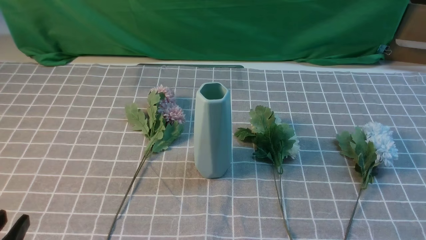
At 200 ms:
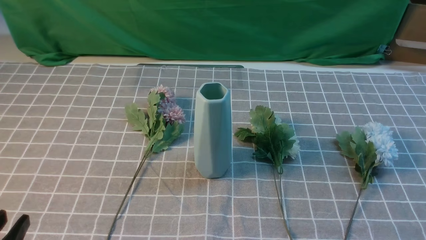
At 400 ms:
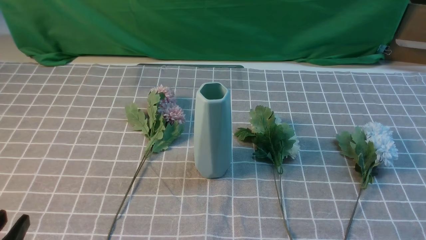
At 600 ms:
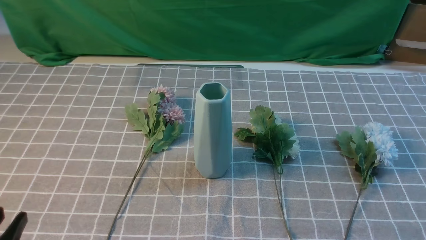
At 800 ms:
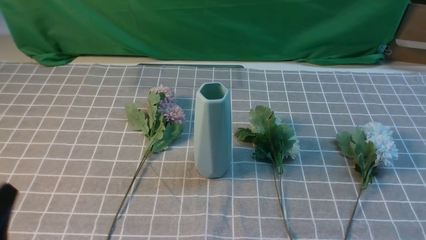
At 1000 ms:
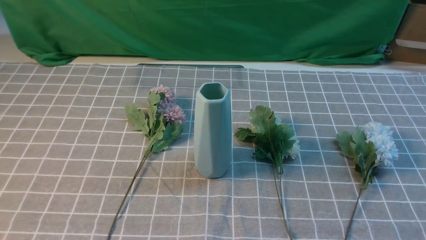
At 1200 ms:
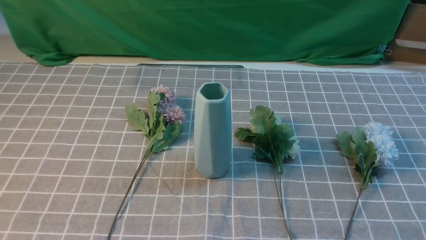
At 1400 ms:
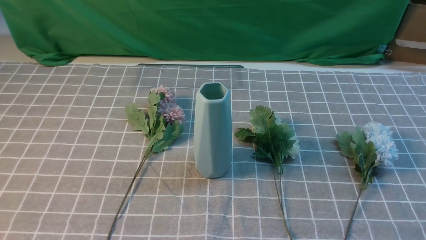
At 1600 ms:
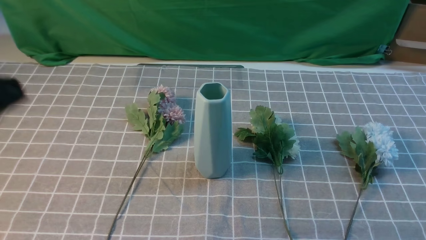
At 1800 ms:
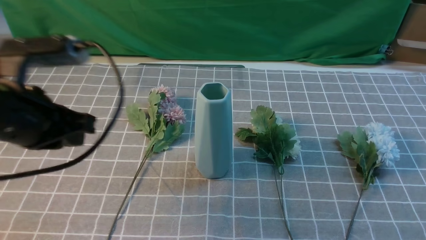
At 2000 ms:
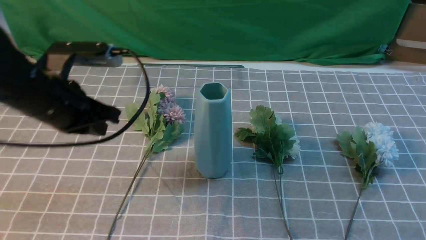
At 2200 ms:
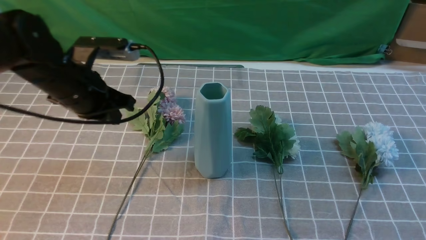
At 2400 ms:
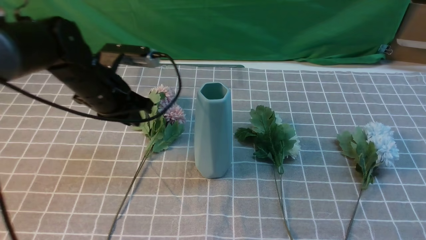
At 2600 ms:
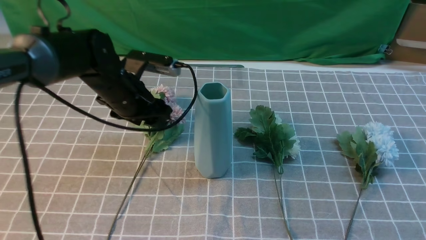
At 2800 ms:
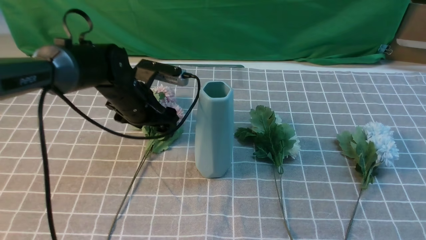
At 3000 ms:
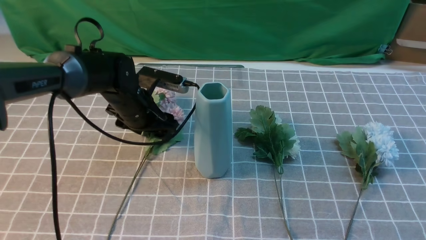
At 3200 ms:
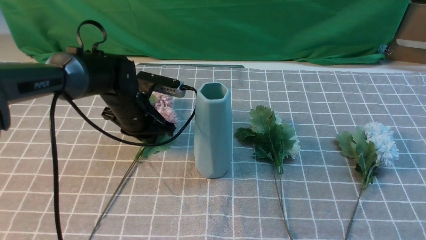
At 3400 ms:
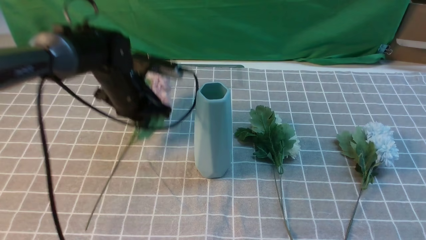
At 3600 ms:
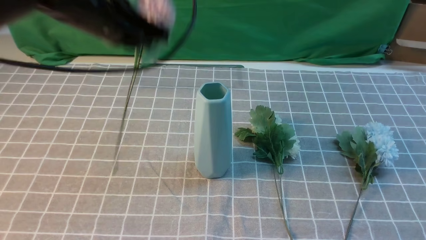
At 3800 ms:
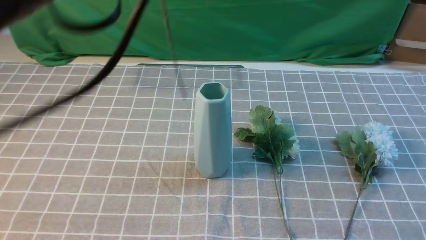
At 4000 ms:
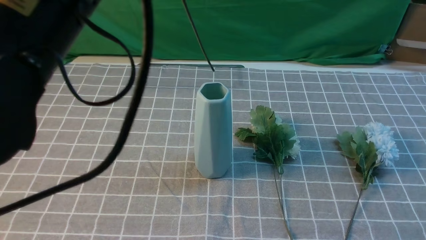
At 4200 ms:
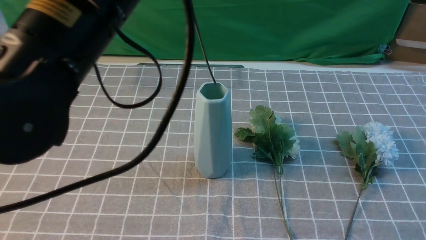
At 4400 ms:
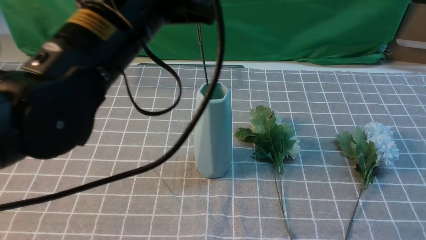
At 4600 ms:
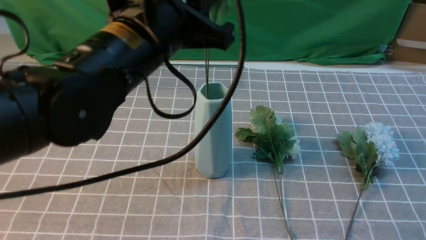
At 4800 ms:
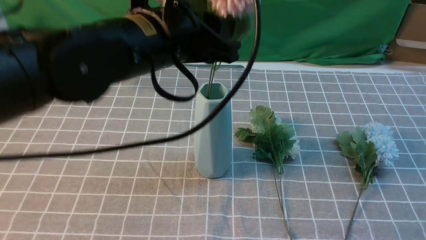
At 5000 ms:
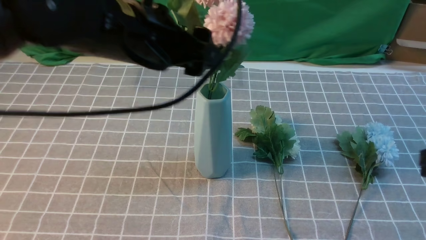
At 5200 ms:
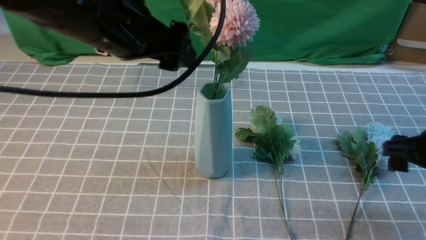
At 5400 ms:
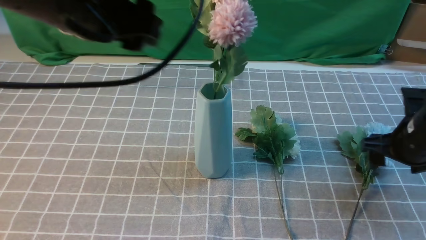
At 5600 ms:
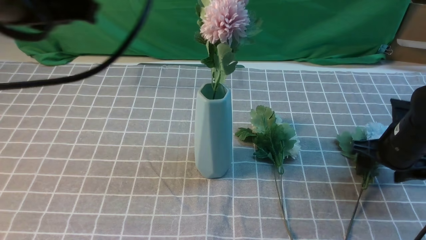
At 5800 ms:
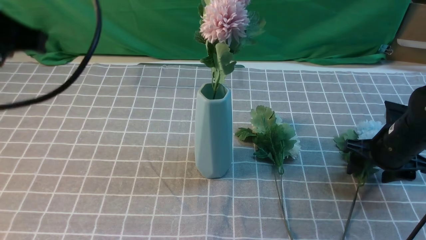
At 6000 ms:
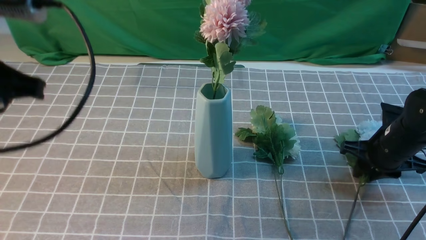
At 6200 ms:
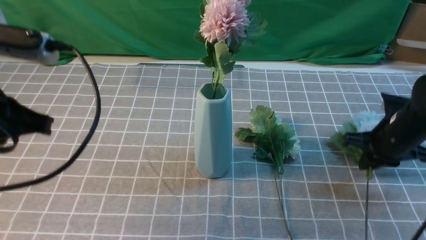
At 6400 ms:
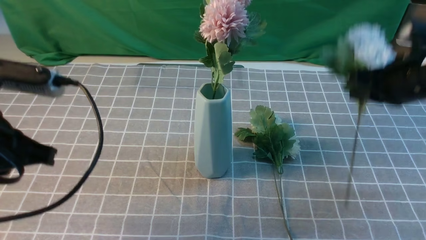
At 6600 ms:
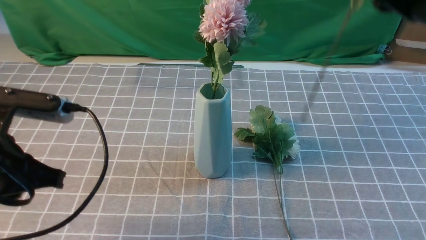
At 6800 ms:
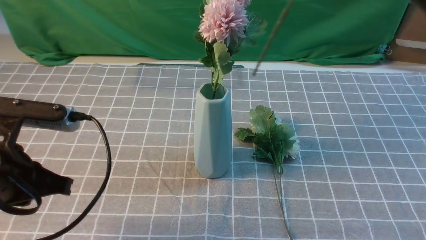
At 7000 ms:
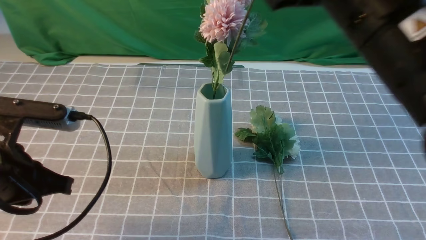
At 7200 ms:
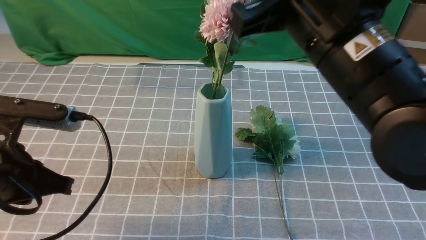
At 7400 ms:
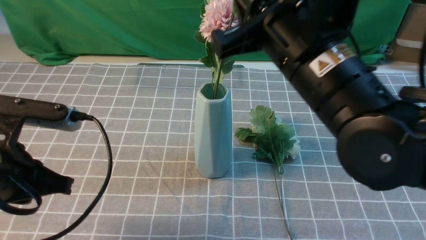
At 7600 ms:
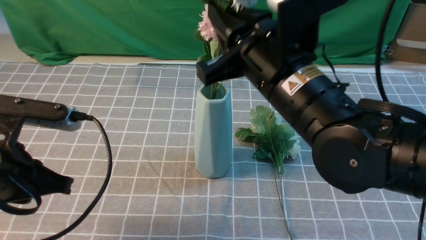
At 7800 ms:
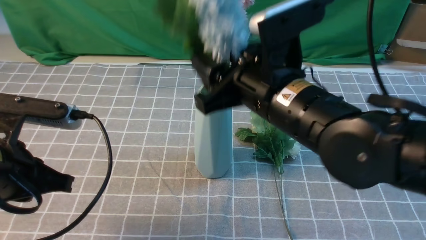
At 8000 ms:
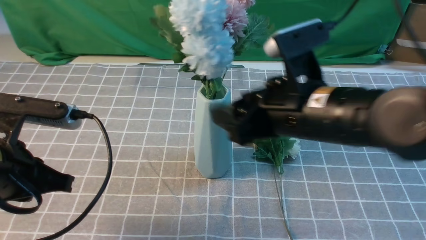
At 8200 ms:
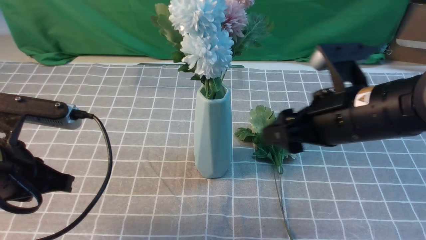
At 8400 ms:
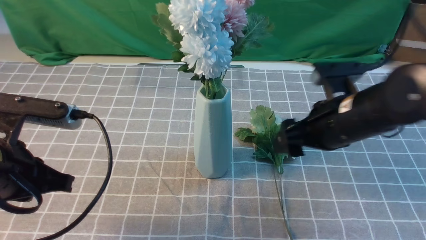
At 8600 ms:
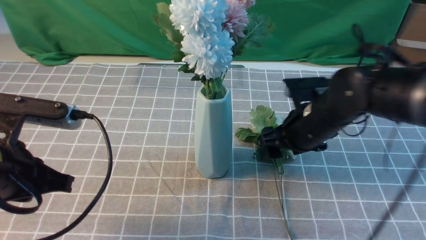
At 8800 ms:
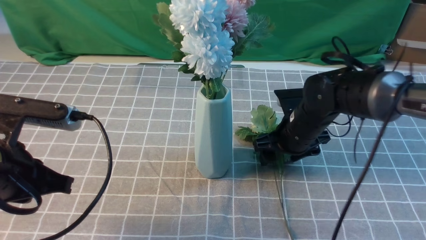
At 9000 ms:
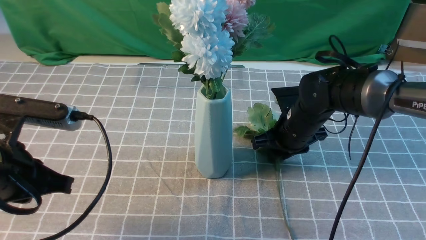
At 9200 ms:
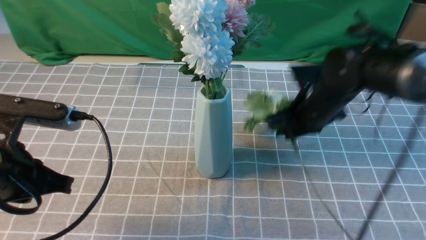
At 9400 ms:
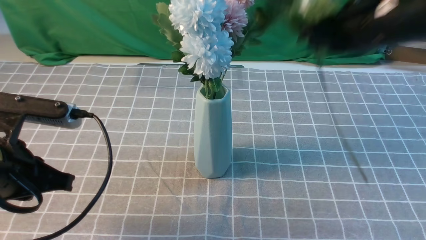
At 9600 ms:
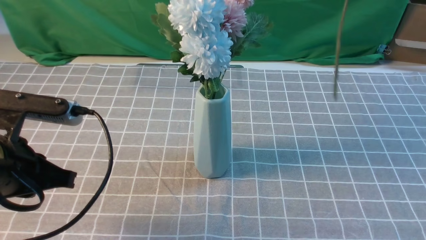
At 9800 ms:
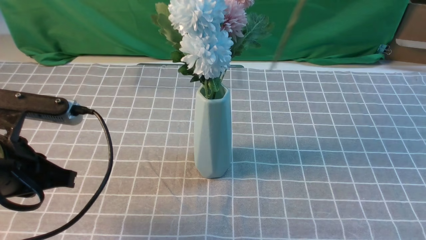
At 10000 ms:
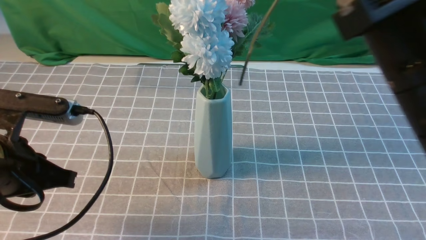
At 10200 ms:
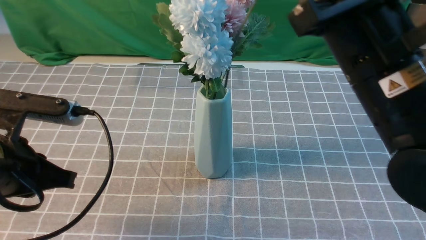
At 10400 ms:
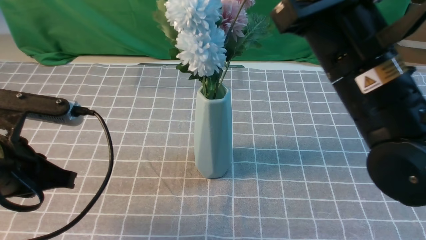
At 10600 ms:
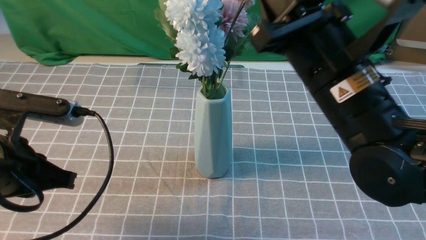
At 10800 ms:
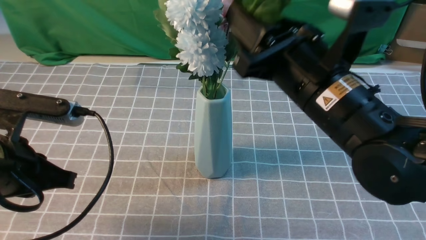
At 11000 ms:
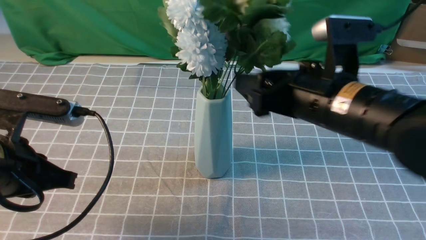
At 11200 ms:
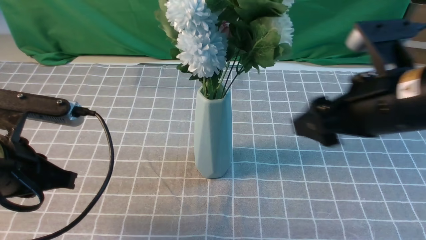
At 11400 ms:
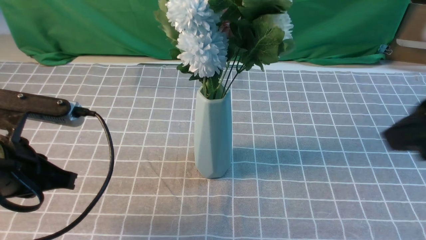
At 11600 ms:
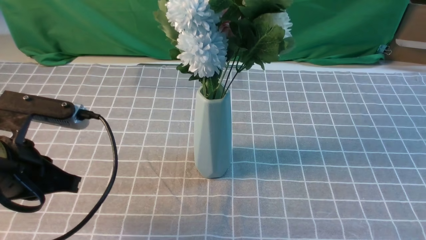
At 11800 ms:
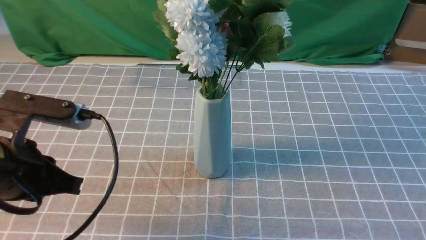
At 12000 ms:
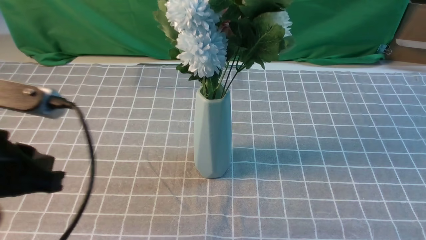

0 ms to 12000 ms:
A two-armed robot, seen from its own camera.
Task of the whole recording: insert the flowers into the vase on the table with the grey tablecloth.
Step, 0 ms to 3200 ms: use the left arm to grab a bunch of fresh flowers.
Step, 3400 ms to 5200 ms: use the left arm to insert the flowers into the vase.
Step, 5400 ms to 6000 ms: use the right arm to grab a bunch of fresh flowers.
Step, 6200 ms to 7800 ms: use the right arm to insert the flowers into the vase.
Step, 8200 ms to 9000 ms: use the right arm to grab a bunch of fresh flowers.
Step, 9200 ms to 11000 ms: use the right arm to insert the flowers into the vase.
0 ms to 1600 ms: The left gripper shifts some 20 cm upward and forward, and closes its fingers.
1600 ms to 3000 ms: The left gripper heads forward and downward, covering some 30 cm, and opens its fingers. Meanwhile the right gripper is displaced upward and forward by approximately 10 cm.
3000 ms to 4400 ms: The left gripper heads upward and backward, covering roughly 25 cm, and closes its fingers.
4400 ms to 6000 ms: The right gripper shifts some 25 cm forward and downward, and opens, then closes again, while the left gripper shifts some 15 cm to the left, and opens, then closes again.
6000 ms to 7600 ms: The left gripper moves downward, roughly 10 cm, while the right gripper shifts approximately 25 cm to the left and upward.
7600 ms to 9000 ms: The right gripper moves downward, forward and to the right, roughly 20 cm, and opens, then closes again.
9000 ms to 10400 ms: The right gripper is displaced upward and backward by about 25 cm, and closes up.
10400 ms to 12000 ms: The right gripper travels backward and to the right by approximately 30 cm, and opens and closes again. Meanwhile the left gripper goes about 5 cm backward and upward.

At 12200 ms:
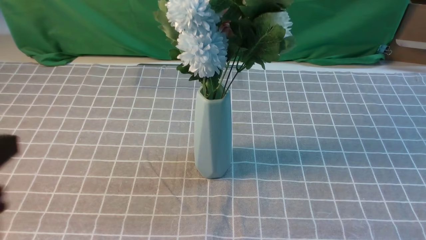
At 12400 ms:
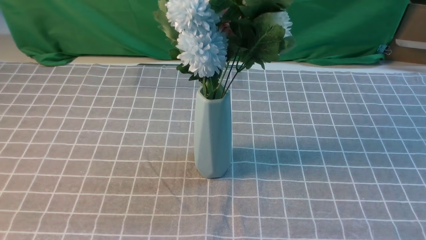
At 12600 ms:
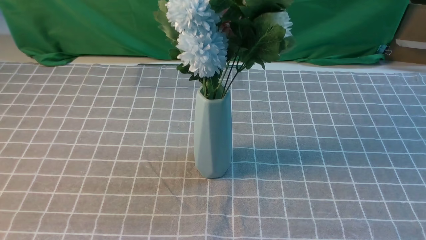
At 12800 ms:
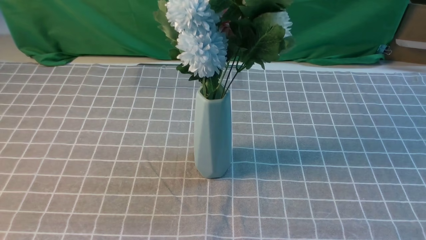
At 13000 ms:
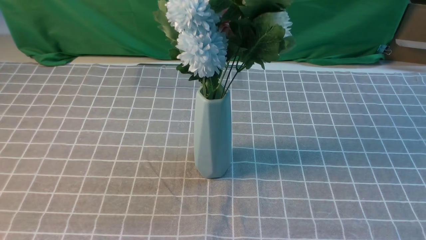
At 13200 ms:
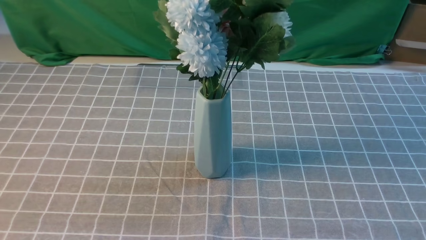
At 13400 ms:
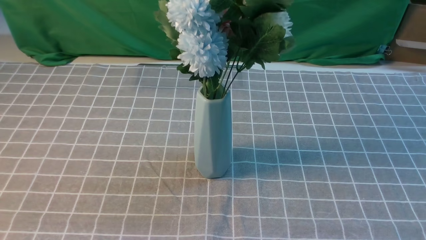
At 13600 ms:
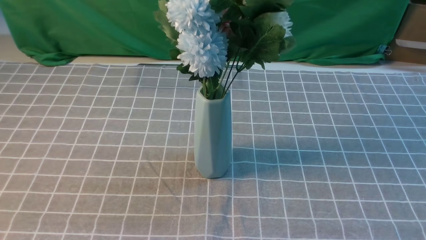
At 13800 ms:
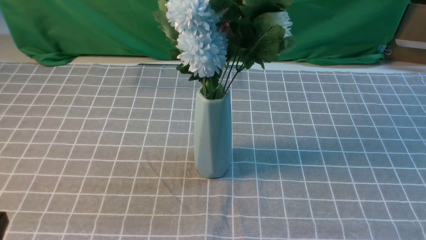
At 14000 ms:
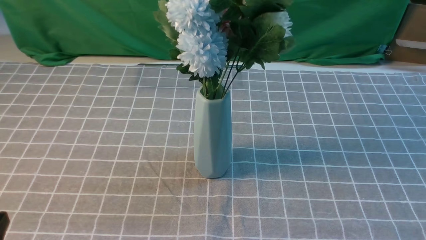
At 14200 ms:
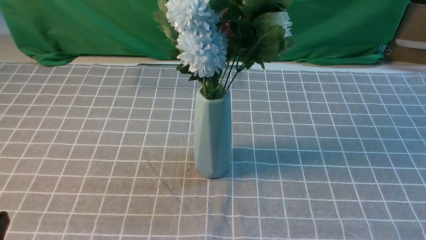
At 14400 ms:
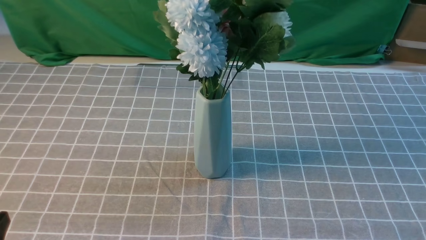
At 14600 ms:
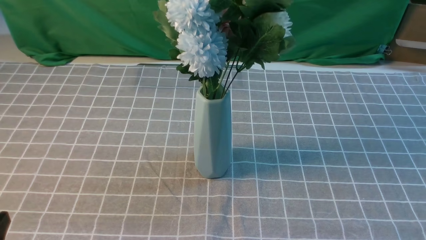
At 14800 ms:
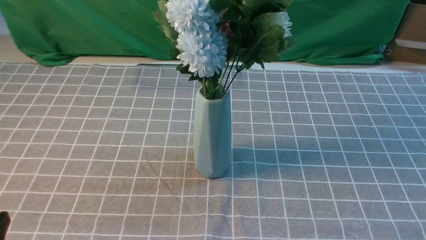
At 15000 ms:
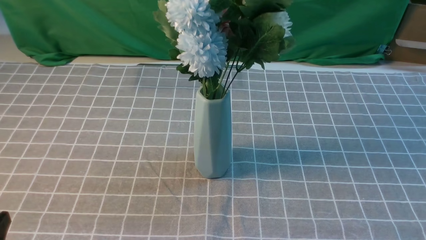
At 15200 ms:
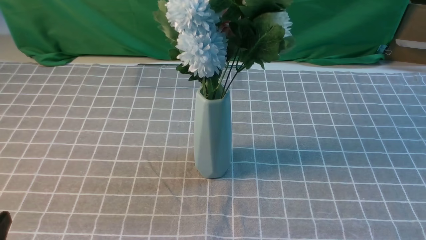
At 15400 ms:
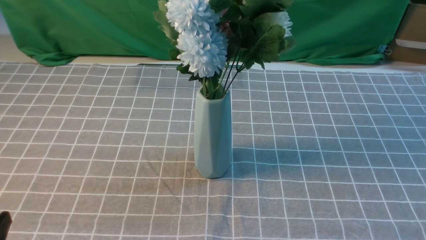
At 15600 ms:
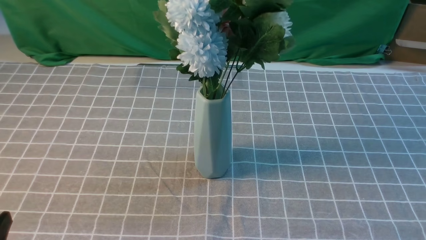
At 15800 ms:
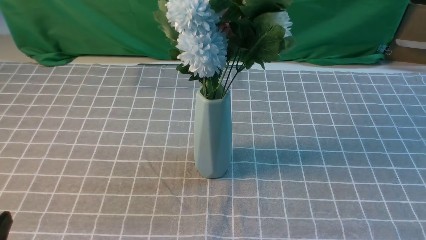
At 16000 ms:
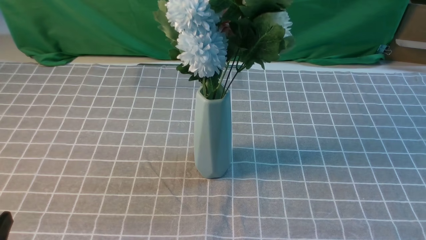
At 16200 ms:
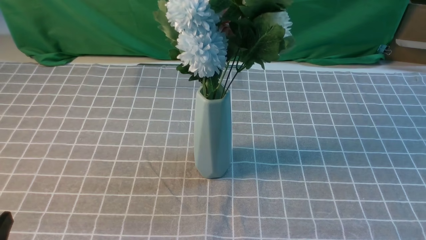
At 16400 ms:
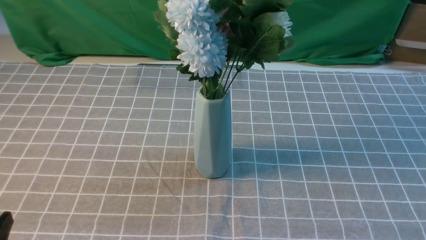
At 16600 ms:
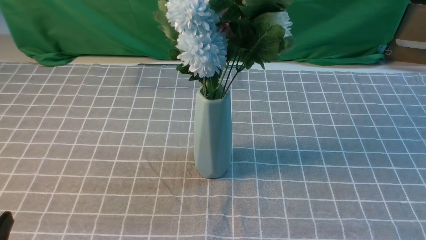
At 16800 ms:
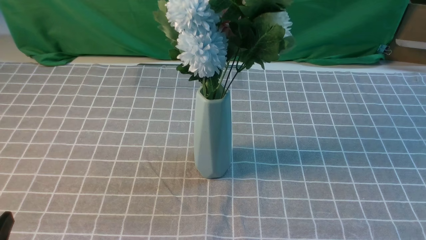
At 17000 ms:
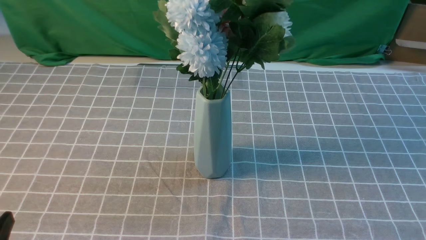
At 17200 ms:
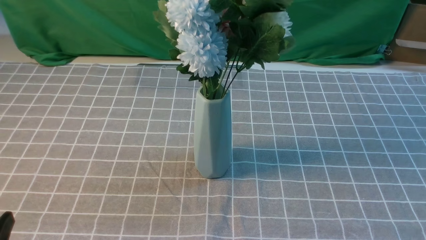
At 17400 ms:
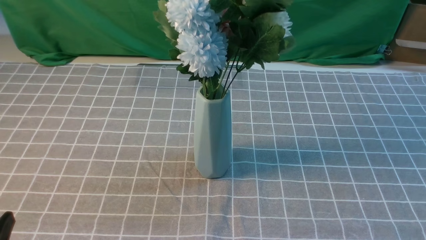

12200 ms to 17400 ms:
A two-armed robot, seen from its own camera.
Task of the whole recording: insert the flowers into the vase on the table with the grey tablecloth.
12200 ms to 14000 ms: The left gripper heads downward, covering some 15 cm.
15600 ms to 17400 ms: Both grippers stay about where they are.
